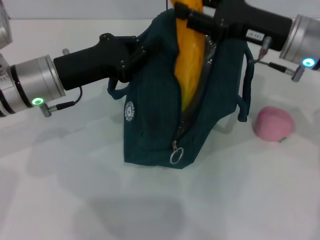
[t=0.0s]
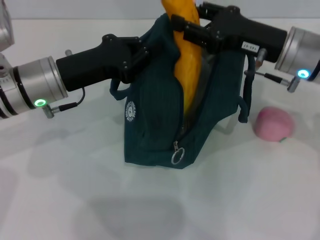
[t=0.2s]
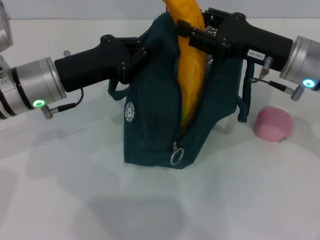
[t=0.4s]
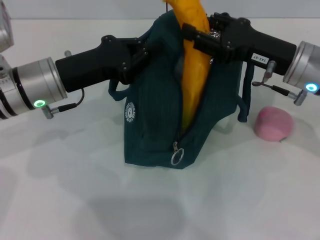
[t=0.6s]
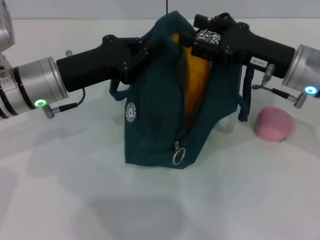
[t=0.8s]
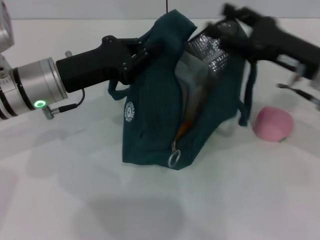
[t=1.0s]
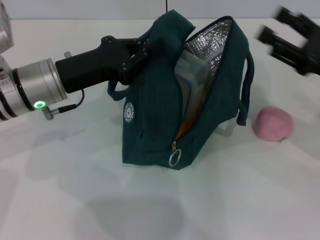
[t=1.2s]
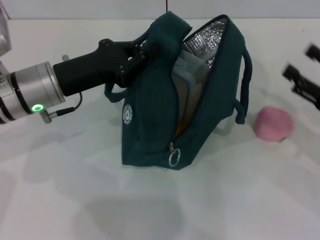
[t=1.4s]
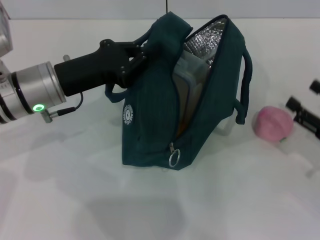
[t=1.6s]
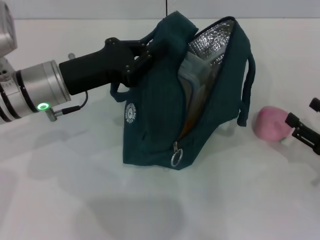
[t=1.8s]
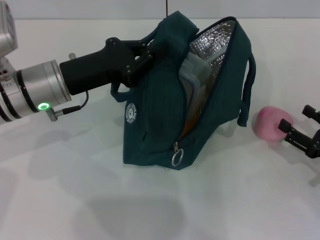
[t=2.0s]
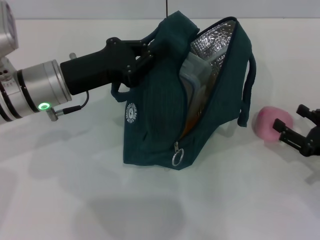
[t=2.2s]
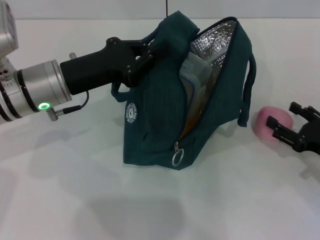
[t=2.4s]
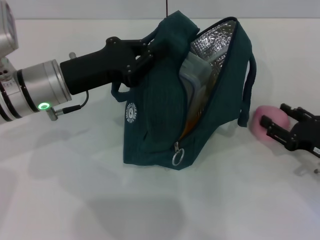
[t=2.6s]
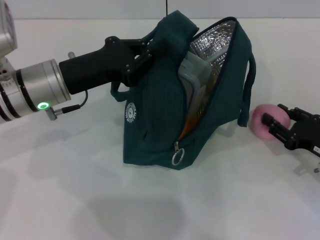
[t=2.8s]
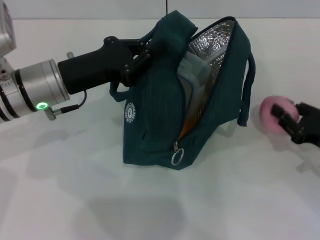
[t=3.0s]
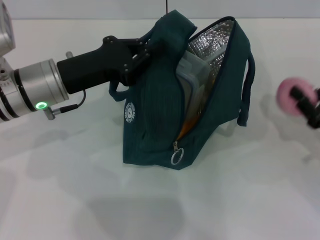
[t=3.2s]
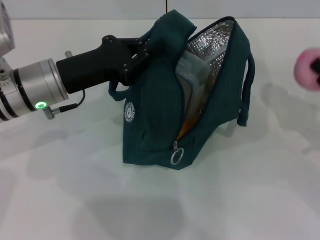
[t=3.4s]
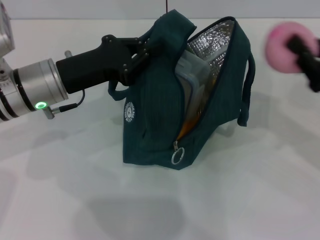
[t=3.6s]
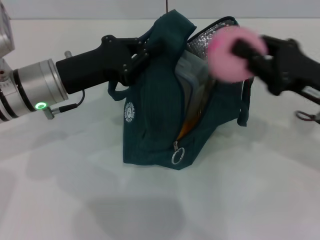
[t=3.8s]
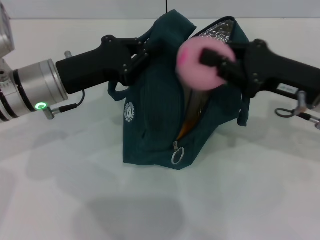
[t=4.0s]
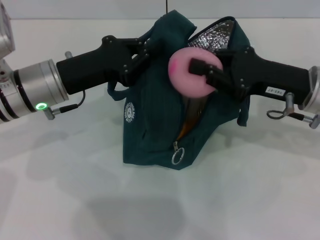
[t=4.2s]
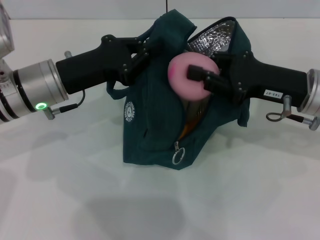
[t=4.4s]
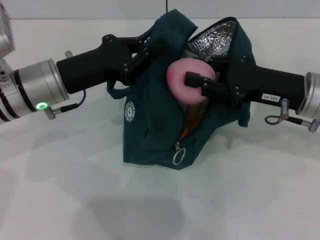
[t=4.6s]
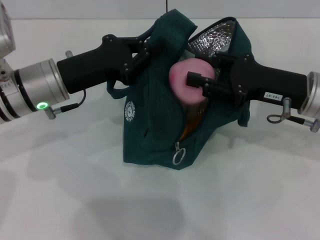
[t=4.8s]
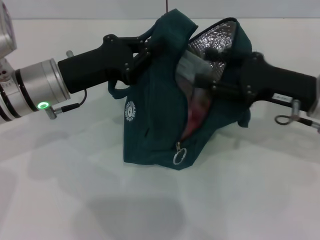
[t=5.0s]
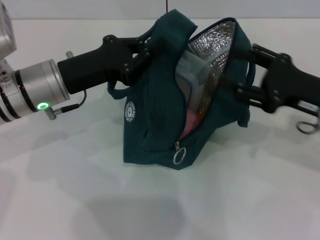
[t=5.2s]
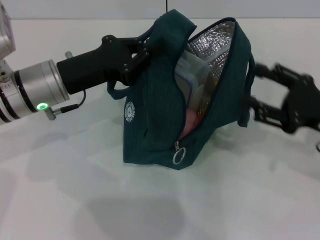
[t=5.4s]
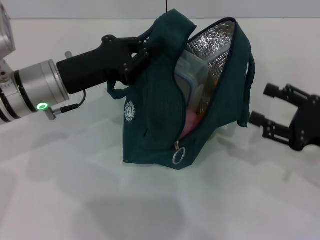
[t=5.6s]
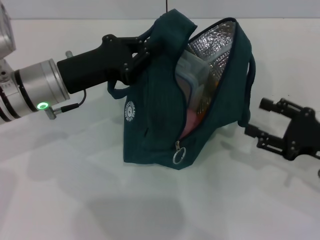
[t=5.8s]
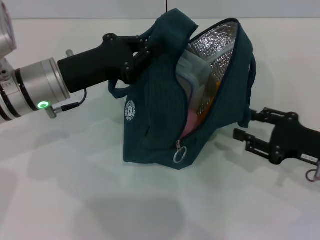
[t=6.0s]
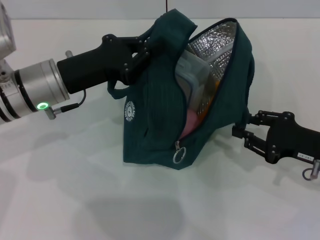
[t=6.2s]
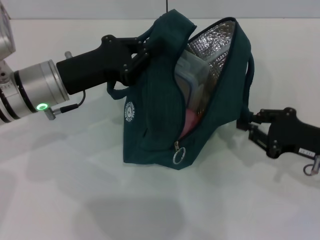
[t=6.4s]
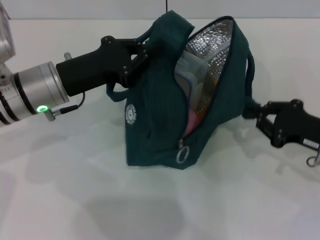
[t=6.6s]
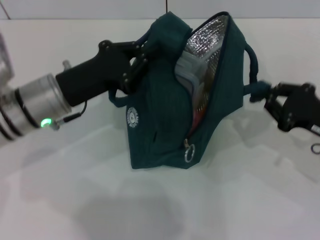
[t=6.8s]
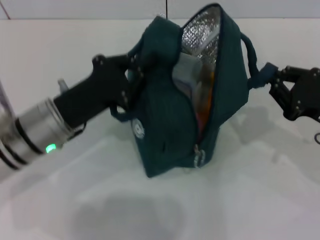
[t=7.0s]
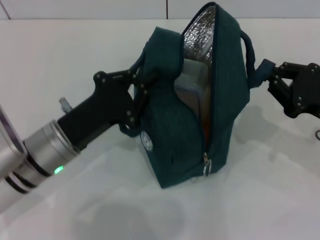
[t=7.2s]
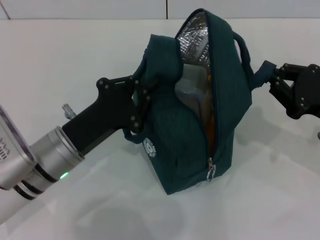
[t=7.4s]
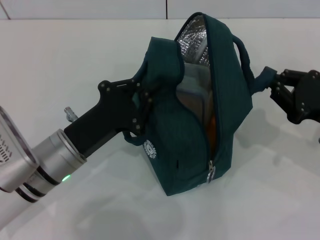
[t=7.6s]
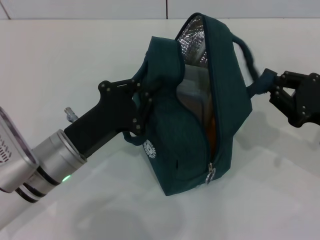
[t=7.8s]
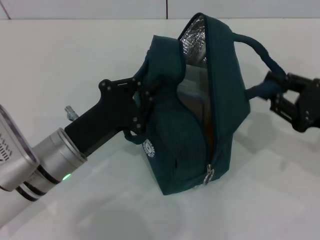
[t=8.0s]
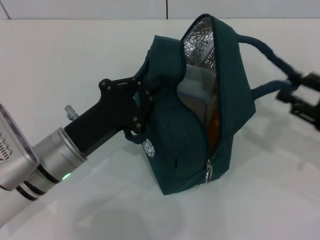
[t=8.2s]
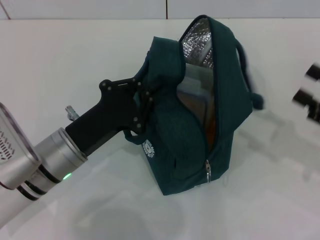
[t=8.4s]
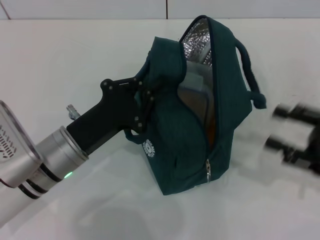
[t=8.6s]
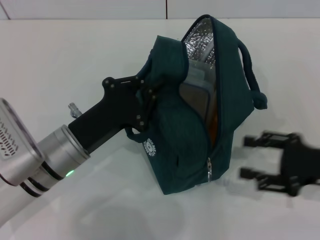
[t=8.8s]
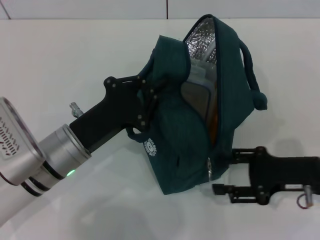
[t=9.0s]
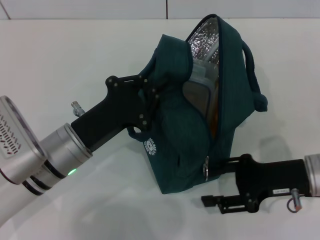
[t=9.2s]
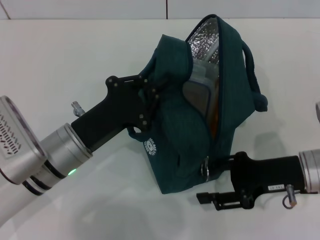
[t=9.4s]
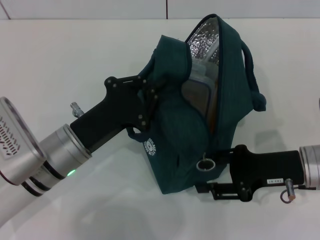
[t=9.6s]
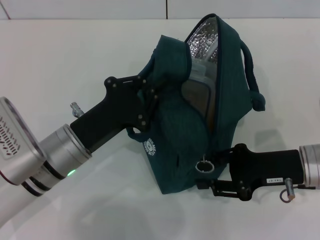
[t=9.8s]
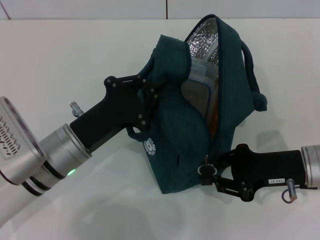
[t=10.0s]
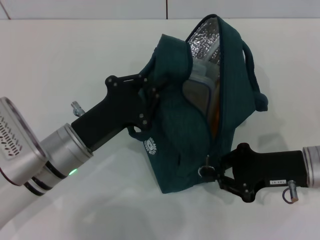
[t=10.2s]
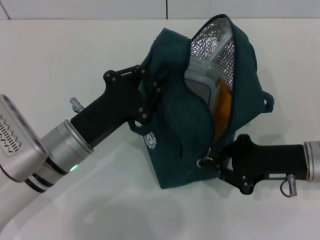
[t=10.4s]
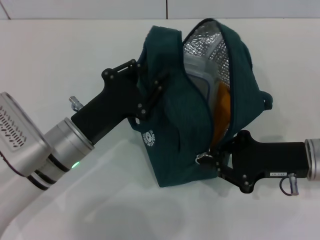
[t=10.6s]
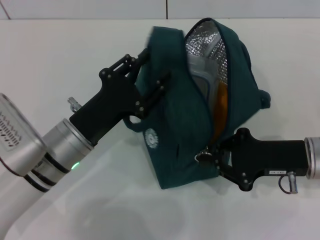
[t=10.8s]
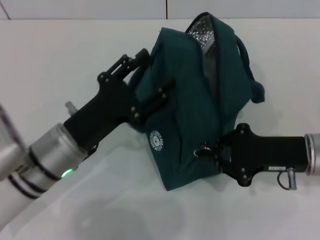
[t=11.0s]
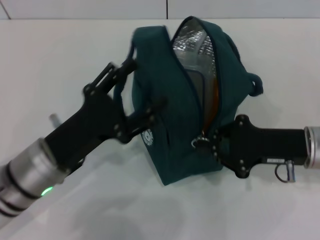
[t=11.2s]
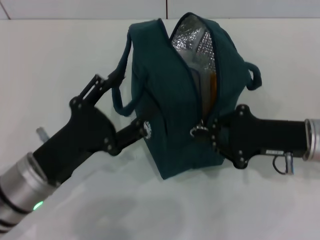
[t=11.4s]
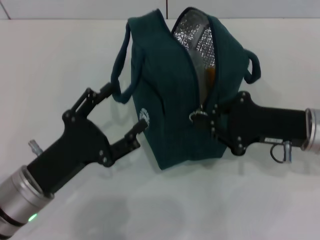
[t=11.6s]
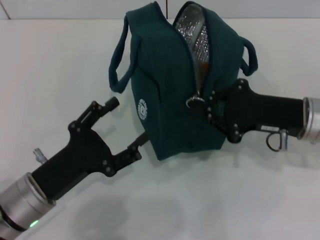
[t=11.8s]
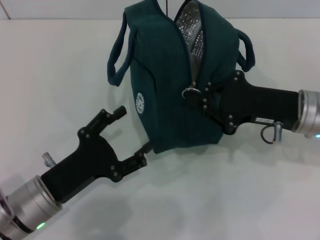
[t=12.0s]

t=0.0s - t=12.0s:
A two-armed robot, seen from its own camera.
Step, t=1.2s - t=2.6s: Grab the peach with your right hand.
Step, t=5.2s - t=8.2s: Hold the lunch bag with your right hand.
Step, t=8.4s - t=11.2s: Hold the lunch bag with your left hand.
t=0.0s - t=1.6s: The right gripper goes some 20 cm to the right, backward and downward, and opens.
t=1.6s - t=3.0s: The right gripper closes its fingers.
t=3.0s - t=4.4s: The right gripper travels upward, to the left and forward by about 15 cm.
t=4.4s - t=6.0s: The right gripper is displaced downward, to the right and backward by some 10 cm, and opens up.
t=6.0s - t=7.6s: The left gripper moves backward and downward, roughly 10 cm, while the right gripper closes.
t=7.6s - t=9.0s: The right gripper opens its fingers.
t=9.0s - t=10.4s: The right gripper closes up.
t=10.4s - t=12.0s: The right gripper changes place by about 5 cm. Meanwhile the left gripper travels backward by about 5 cm, and opens up.

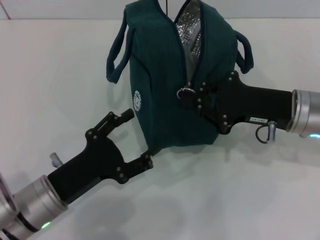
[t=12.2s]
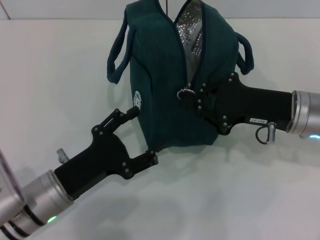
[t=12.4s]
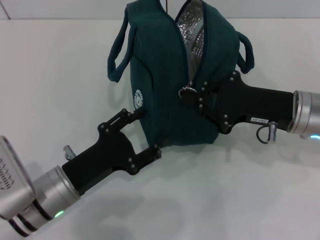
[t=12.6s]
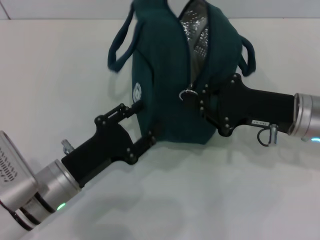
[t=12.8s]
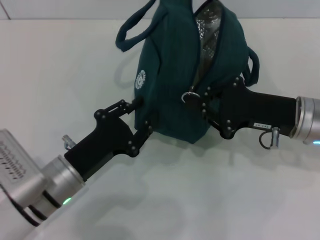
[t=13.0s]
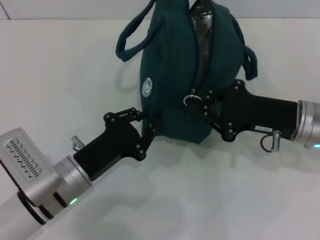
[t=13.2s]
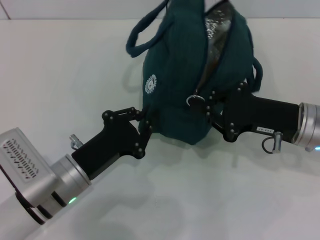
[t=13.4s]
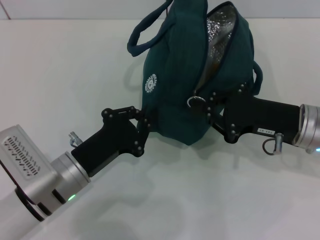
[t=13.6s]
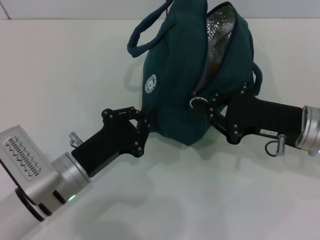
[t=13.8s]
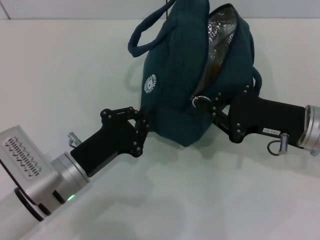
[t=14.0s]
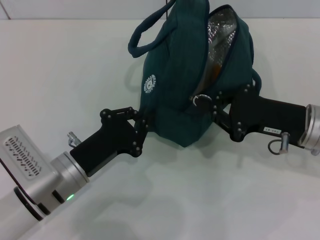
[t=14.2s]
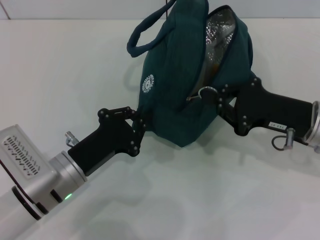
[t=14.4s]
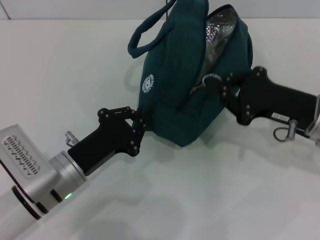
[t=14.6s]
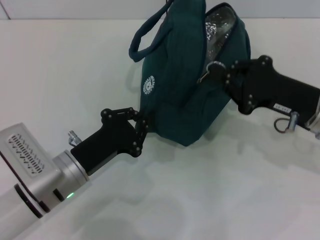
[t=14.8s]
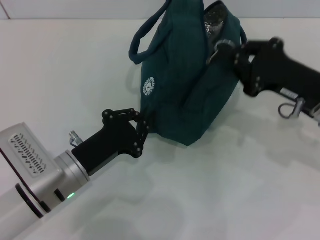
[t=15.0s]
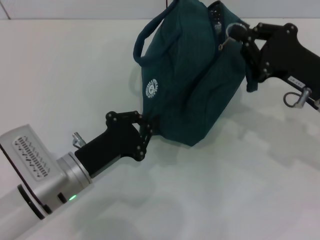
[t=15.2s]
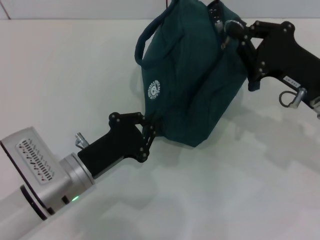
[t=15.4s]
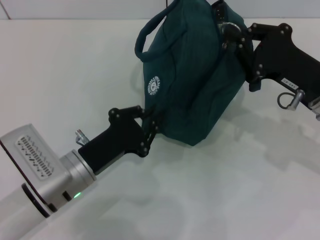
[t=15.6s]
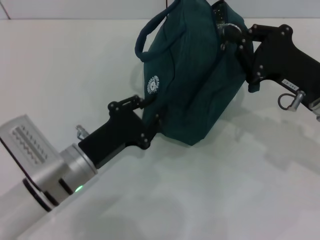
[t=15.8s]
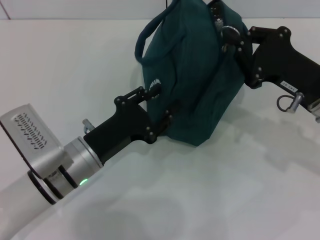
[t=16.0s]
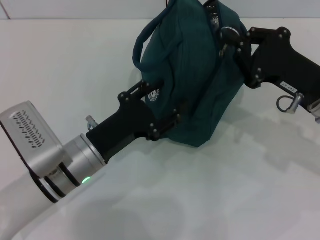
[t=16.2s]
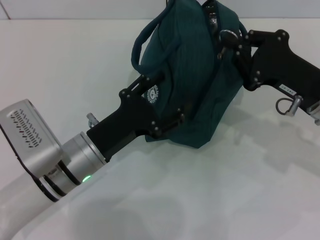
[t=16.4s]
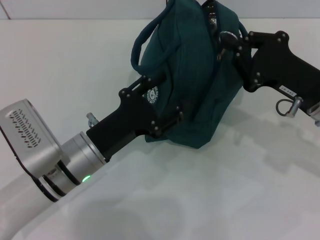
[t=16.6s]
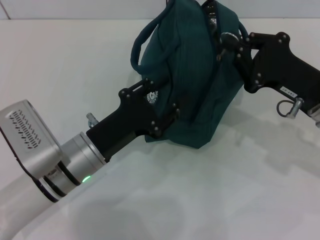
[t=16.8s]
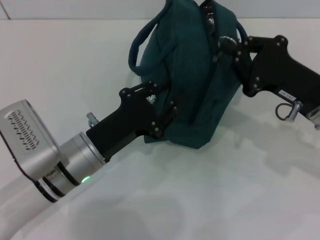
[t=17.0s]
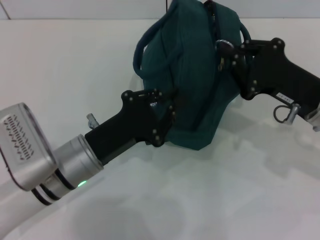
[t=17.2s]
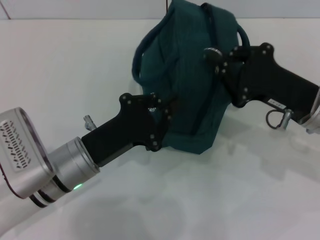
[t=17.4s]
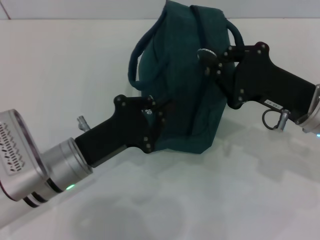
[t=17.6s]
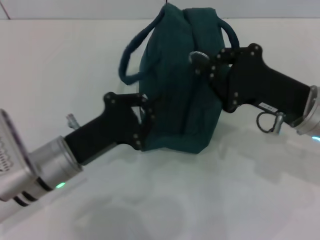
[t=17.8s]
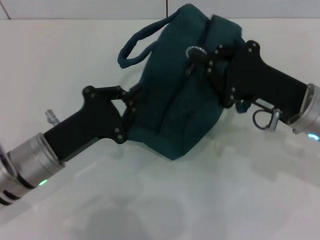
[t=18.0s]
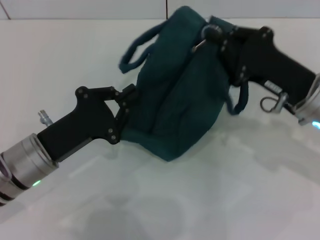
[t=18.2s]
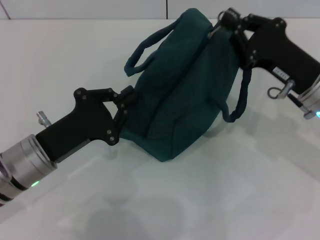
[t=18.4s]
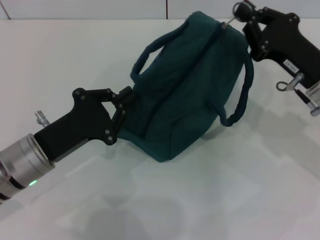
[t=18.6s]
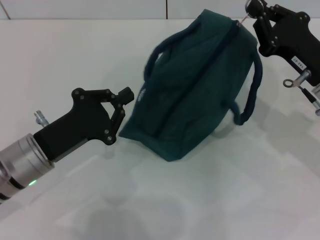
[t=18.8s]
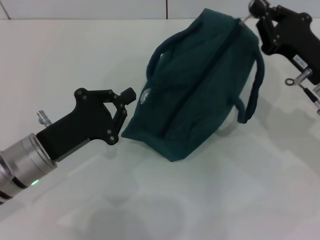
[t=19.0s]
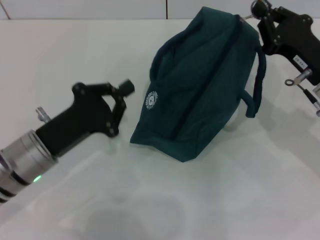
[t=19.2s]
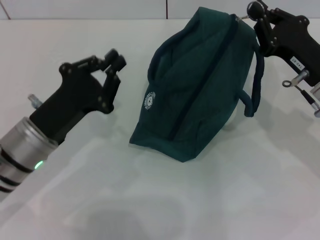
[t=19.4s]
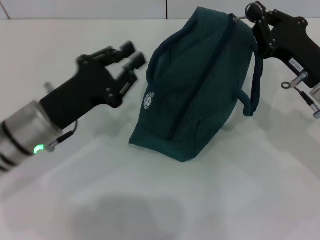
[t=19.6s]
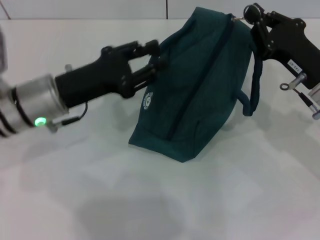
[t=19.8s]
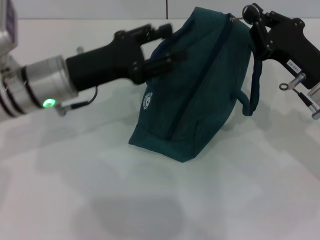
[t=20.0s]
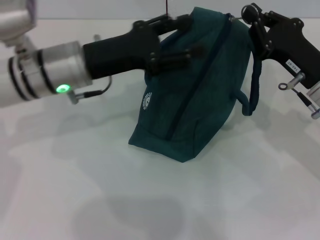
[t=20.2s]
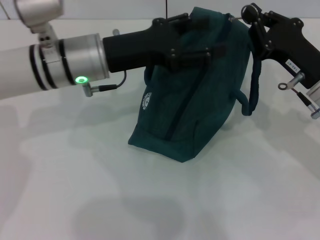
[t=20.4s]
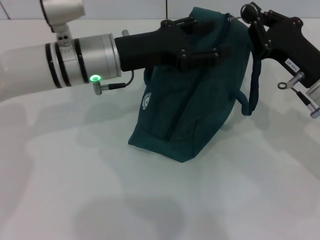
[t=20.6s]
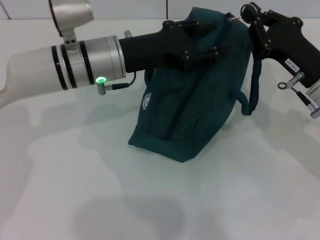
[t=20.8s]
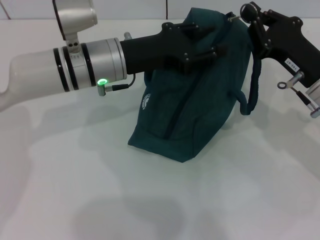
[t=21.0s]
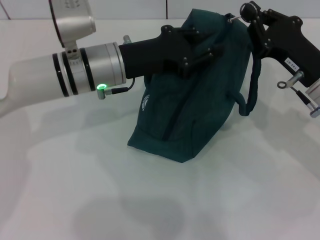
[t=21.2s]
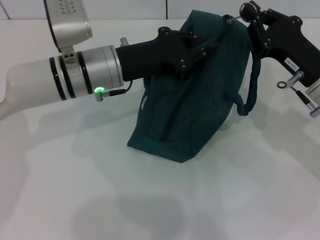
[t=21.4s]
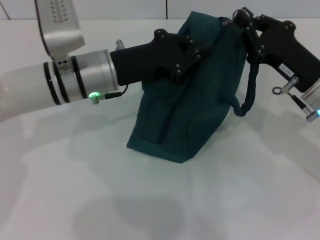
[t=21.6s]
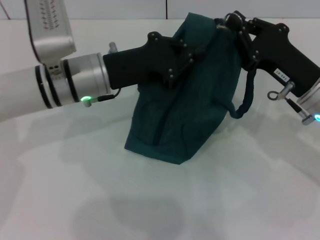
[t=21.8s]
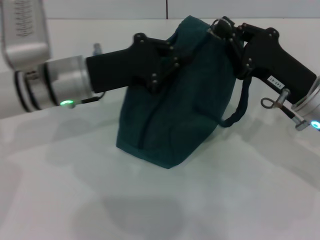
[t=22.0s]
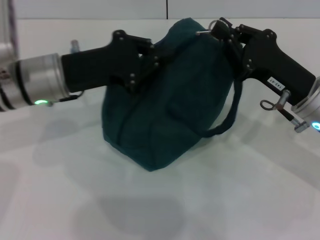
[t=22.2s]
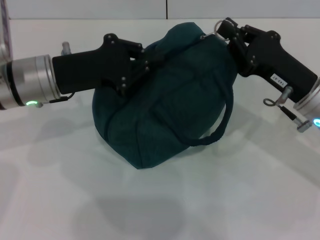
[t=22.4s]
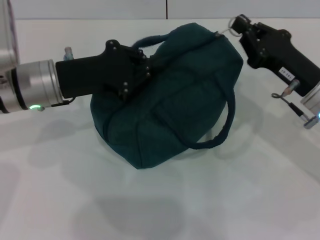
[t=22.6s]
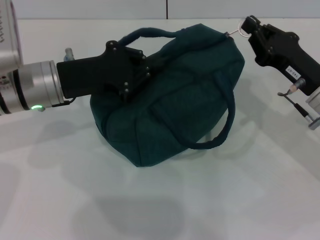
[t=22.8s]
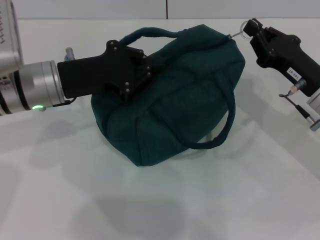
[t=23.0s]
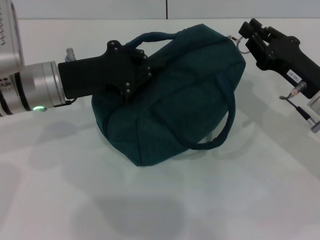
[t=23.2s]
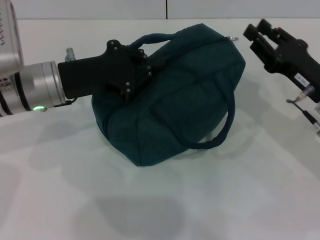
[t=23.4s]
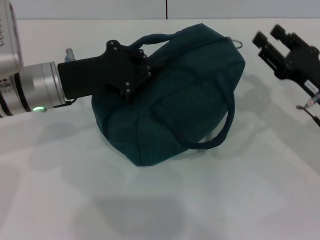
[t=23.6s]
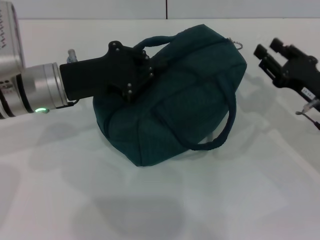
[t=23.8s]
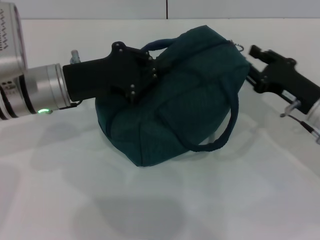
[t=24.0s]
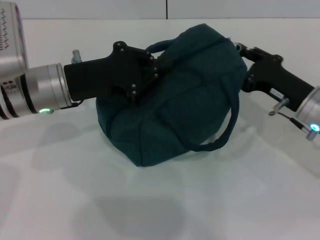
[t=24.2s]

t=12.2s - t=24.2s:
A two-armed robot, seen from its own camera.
t=12.2s - t=13.8s: The left gripper closes.
t=15.2s - t=16.6s: The left gripper opens its fingers.
t=16.6s - t=18.2s: The left gripper travels to the left by some 5 cm, and closes its fingers.
t=18.2s - t=19.8s: The left gripper shifts roughly 10 cm forward and upward, and opens.
t=19.8s - t=21.2s: The left gripper moves to the right, about 5 cm.
t=21.2s - t=22.6s: The left gripper travels to the left by approximately 10 cm, and closes.
t=22.6s - t=24.2s: The right gripper opens its fingers.
